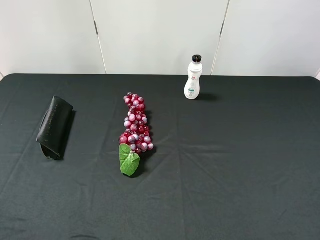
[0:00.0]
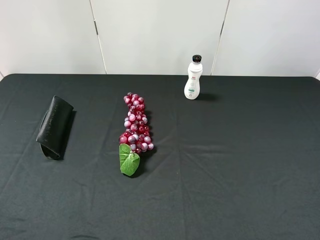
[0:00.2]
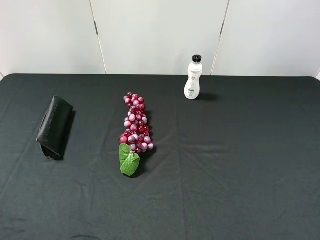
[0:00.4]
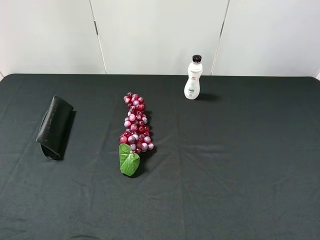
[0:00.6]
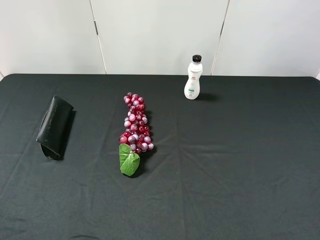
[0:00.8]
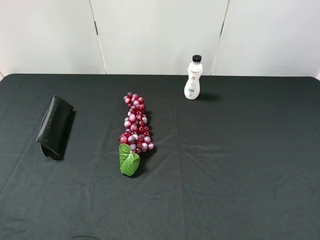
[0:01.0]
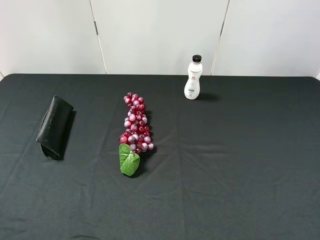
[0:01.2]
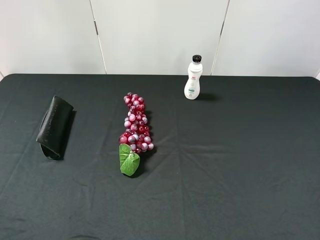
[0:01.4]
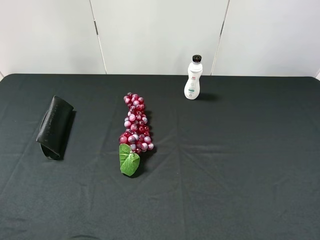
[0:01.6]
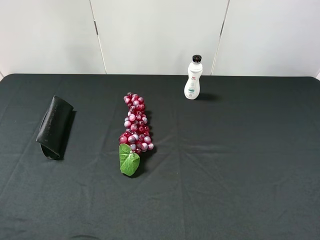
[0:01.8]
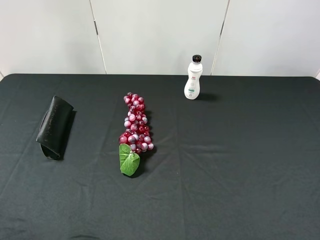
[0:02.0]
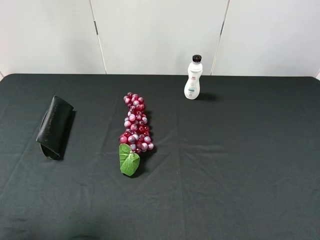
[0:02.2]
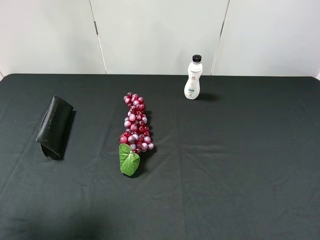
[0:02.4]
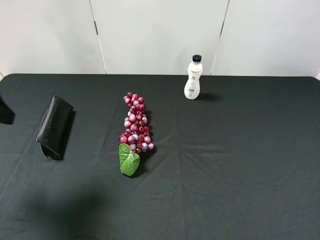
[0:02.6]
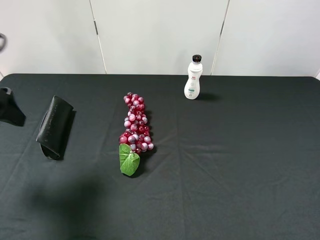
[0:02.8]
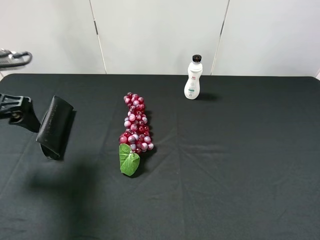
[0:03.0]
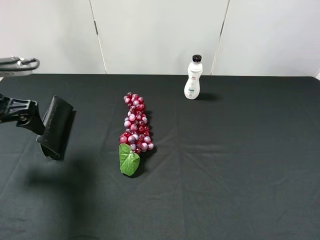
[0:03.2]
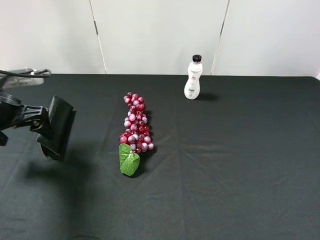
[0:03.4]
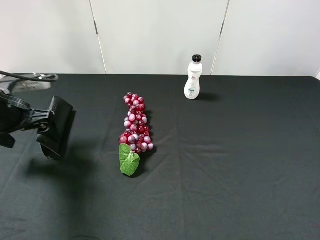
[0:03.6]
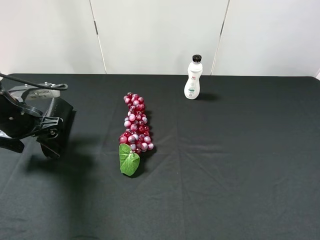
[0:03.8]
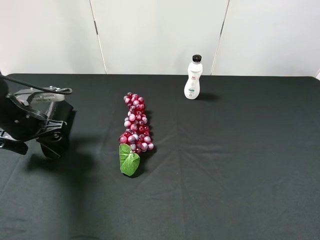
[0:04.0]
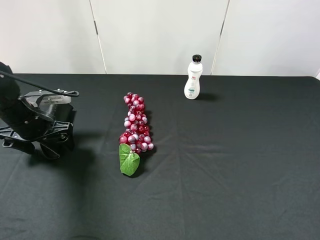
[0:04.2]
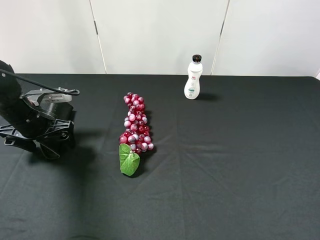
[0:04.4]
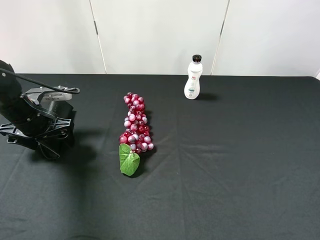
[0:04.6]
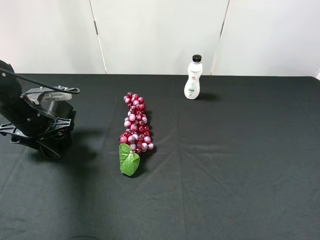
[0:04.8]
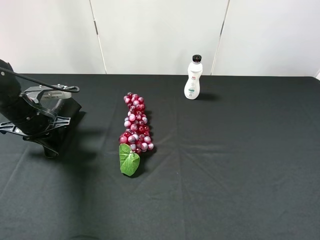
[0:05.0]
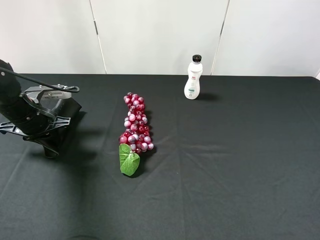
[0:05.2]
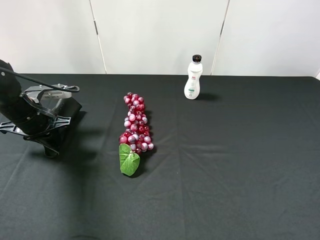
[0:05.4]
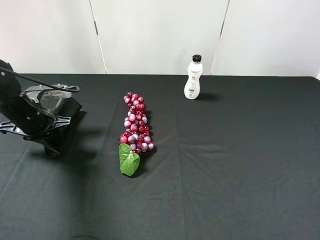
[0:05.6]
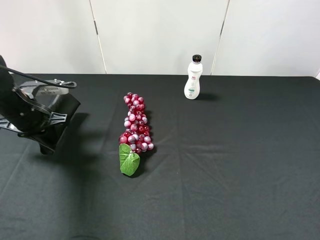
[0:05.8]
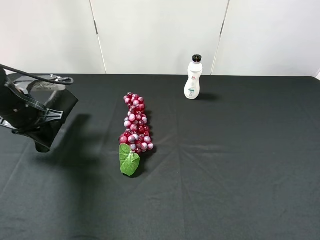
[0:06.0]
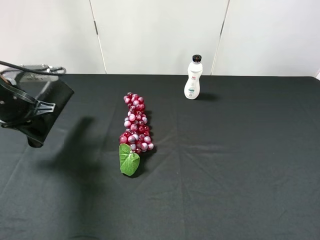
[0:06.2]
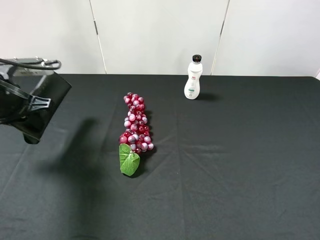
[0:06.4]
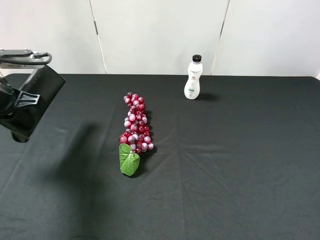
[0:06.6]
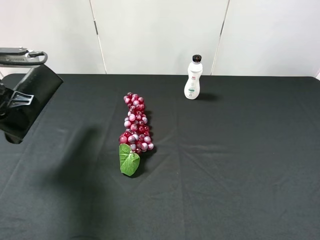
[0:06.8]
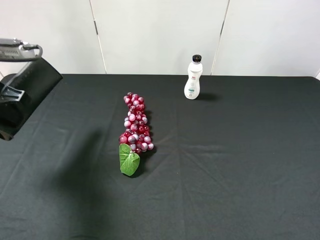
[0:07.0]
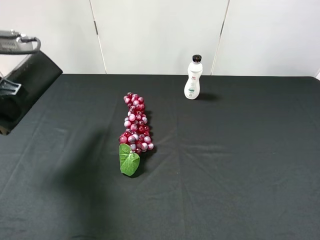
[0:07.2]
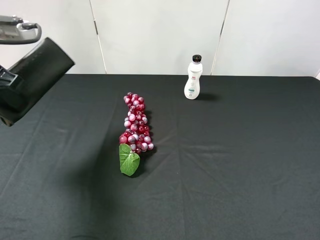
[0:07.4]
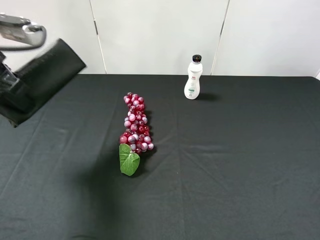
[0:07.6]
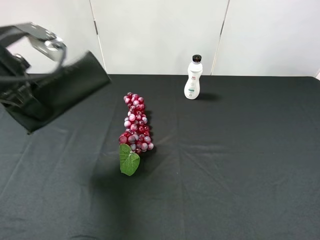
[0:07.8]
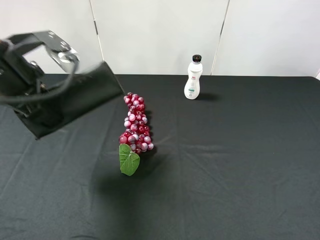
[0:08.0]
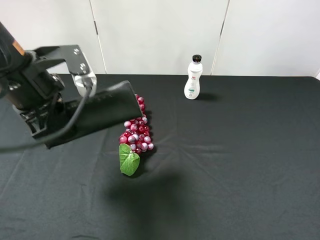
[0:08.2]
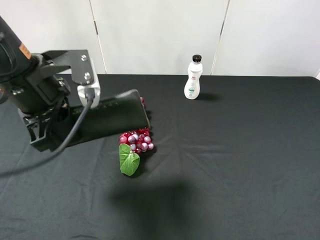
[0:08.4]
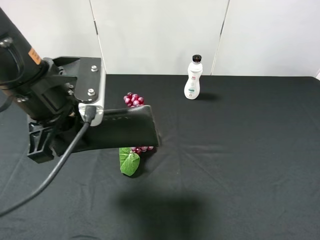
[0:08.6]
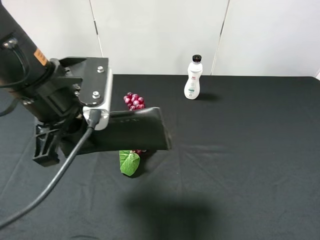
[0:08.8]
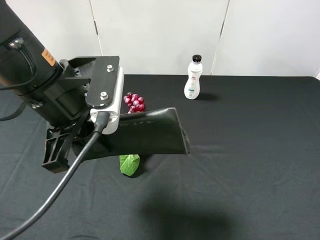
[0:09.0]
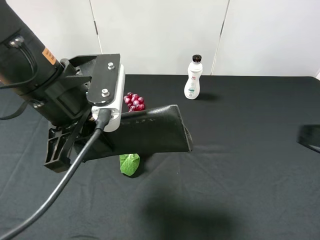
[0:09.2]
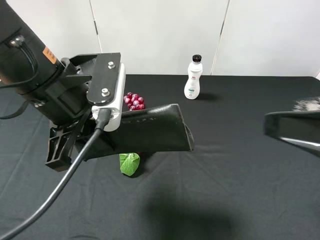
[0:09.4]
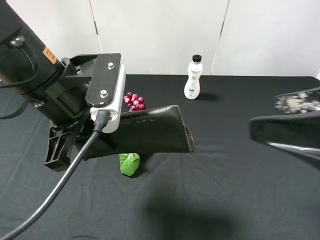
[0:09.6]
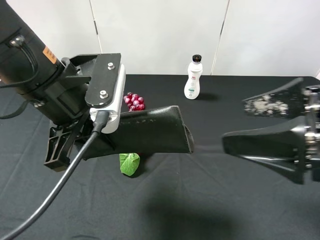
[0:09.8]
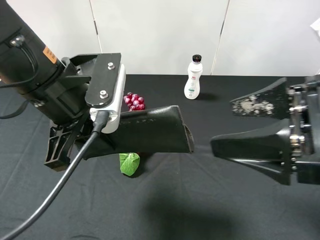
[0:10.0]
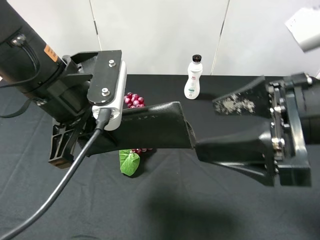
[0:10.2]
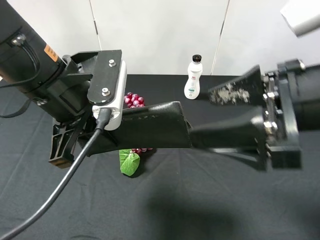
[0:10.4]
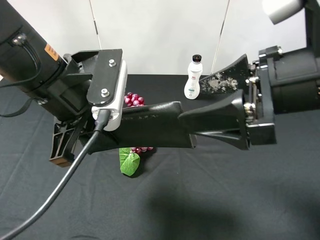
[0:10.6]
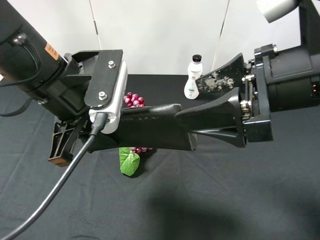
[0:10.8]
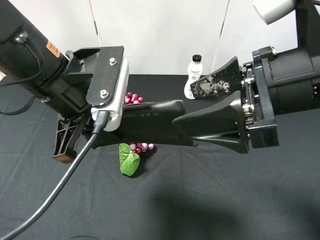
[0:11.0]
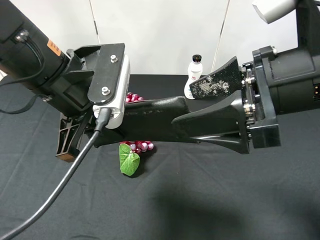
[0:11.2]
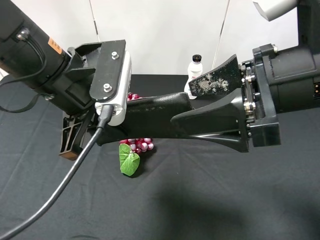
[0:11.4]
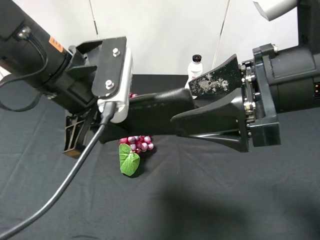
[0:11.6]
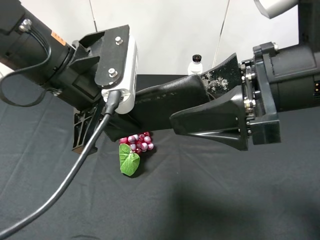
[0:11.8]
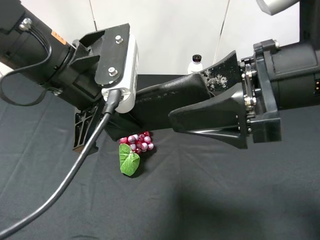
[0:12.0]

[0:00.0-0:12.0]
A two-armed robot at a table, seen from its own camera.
Task of the whole recording: use the left gripper to pick up the item and transfer it from the left gripper to the right gripper.
0:01.6 to 0:03.0: The left gripper shifts roughly 20 cm forward.
0:03.0 to 0:04.4: The left gripper shifts some 10 cm downward and forward.
0:04.4 to 0:06.0: The left gripper closes up.
0:06.0 to 0:07.6: The left gripper moves upward, roughly 10 cm.
0:07.6 to 0:09.0: The left gripper travels to the right by approximately 15 cm.
0:09.0 to 0:10.4: The right gripper shifts approximately 15 cm forward and to the left.

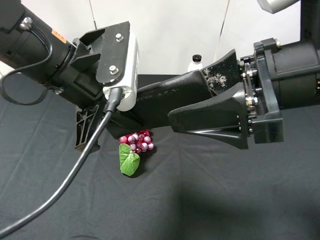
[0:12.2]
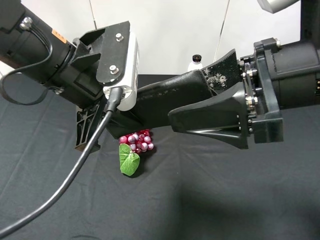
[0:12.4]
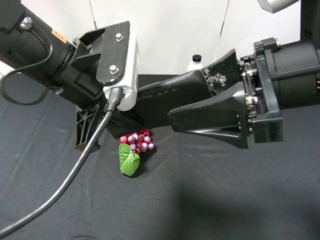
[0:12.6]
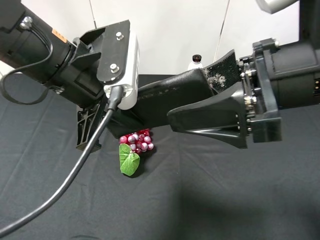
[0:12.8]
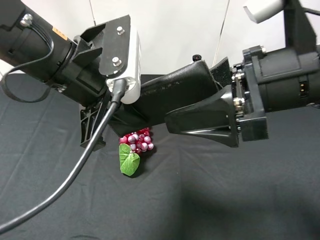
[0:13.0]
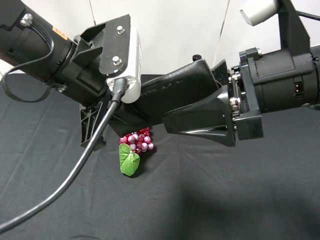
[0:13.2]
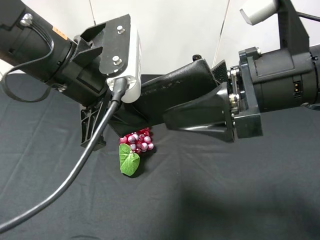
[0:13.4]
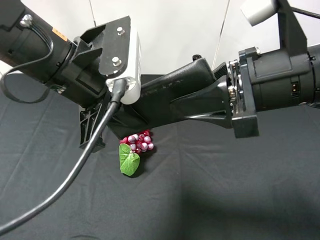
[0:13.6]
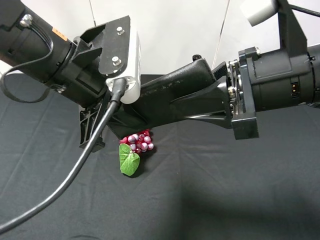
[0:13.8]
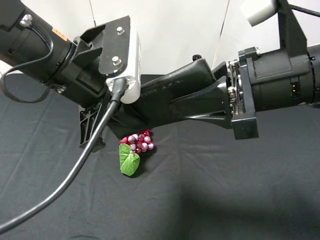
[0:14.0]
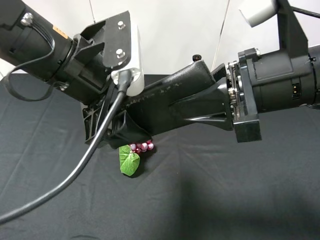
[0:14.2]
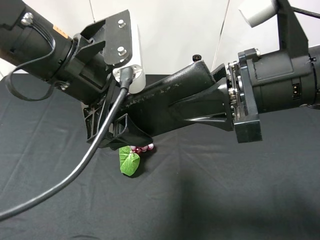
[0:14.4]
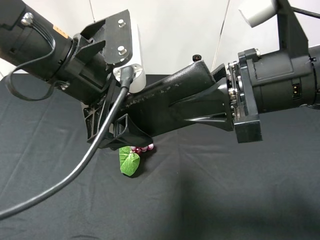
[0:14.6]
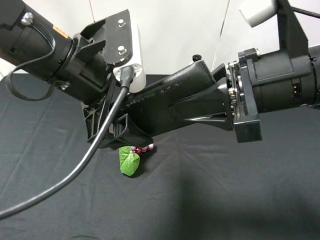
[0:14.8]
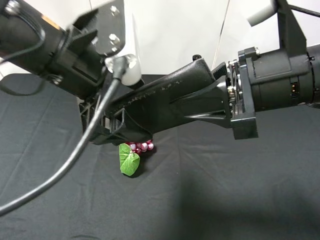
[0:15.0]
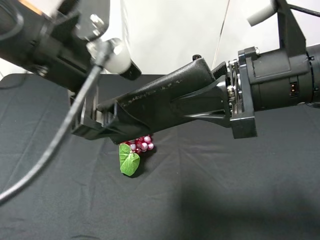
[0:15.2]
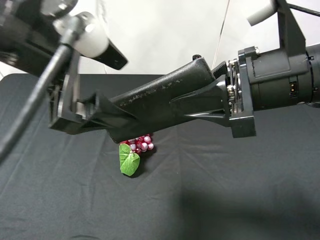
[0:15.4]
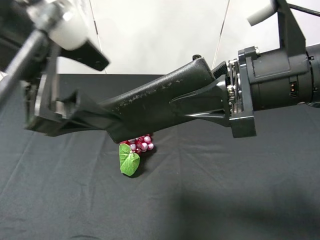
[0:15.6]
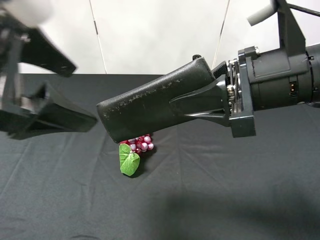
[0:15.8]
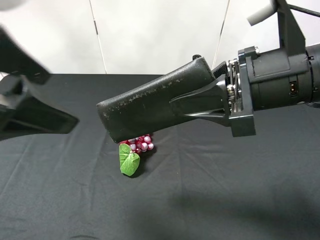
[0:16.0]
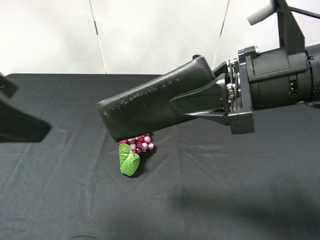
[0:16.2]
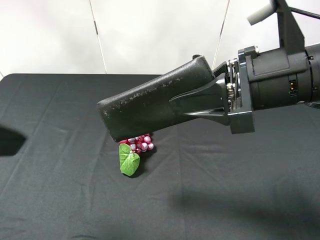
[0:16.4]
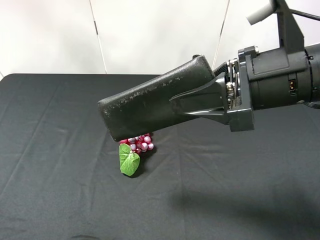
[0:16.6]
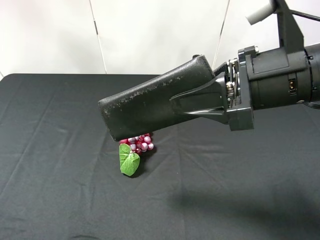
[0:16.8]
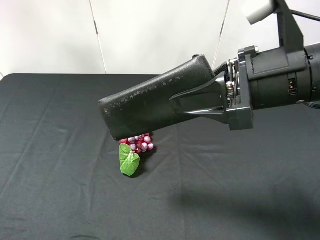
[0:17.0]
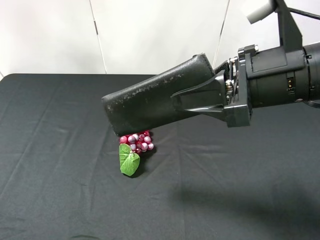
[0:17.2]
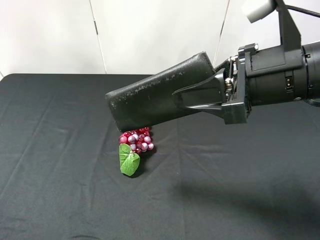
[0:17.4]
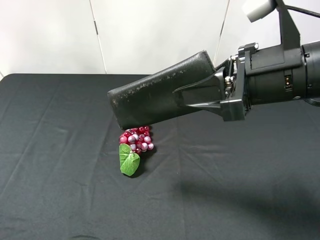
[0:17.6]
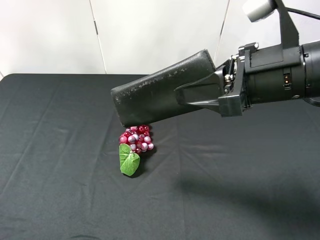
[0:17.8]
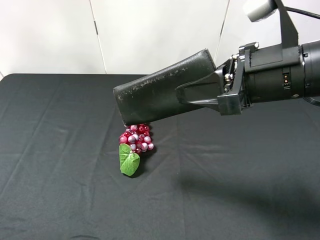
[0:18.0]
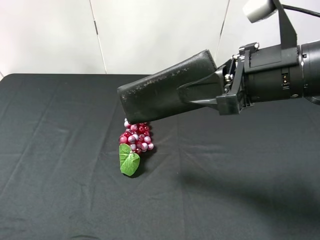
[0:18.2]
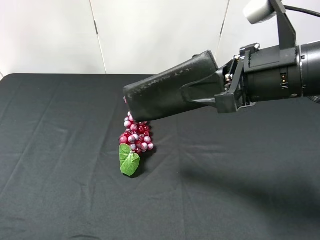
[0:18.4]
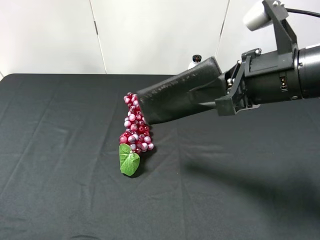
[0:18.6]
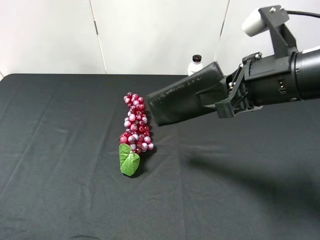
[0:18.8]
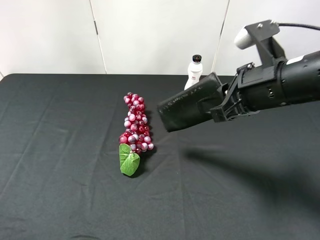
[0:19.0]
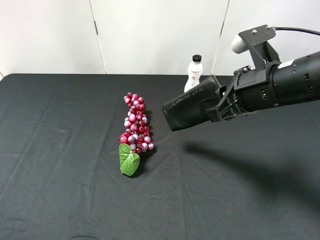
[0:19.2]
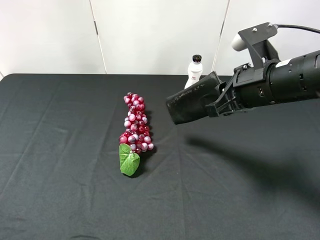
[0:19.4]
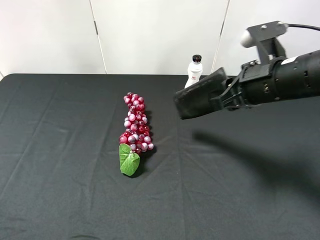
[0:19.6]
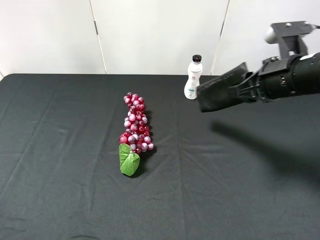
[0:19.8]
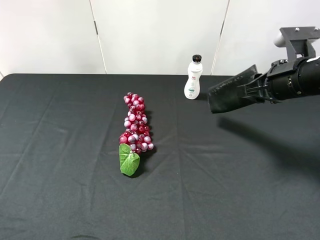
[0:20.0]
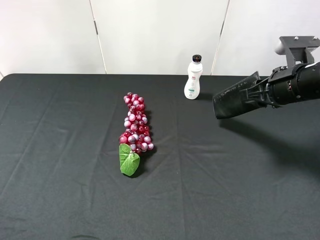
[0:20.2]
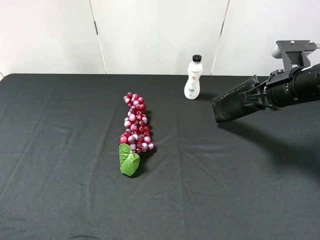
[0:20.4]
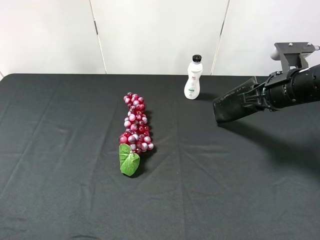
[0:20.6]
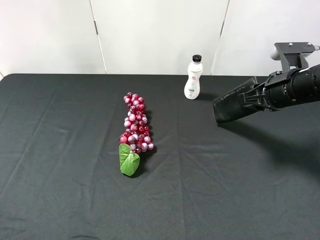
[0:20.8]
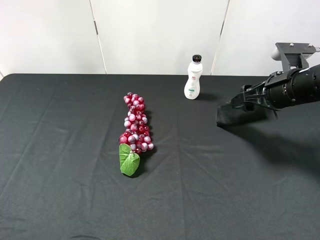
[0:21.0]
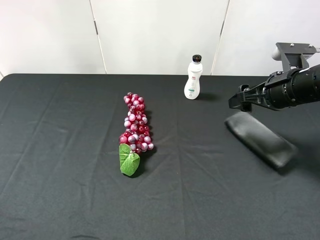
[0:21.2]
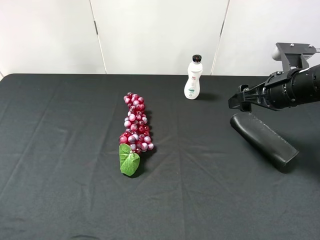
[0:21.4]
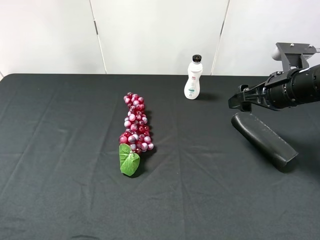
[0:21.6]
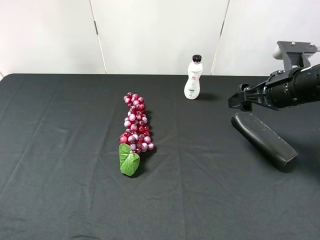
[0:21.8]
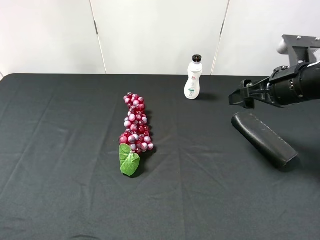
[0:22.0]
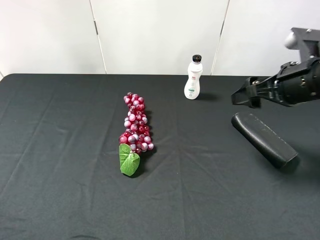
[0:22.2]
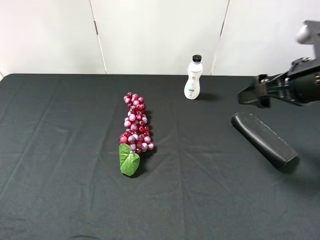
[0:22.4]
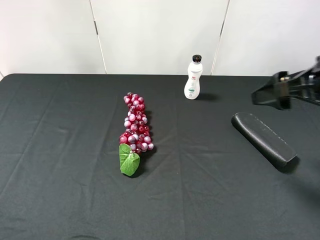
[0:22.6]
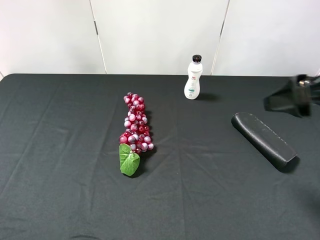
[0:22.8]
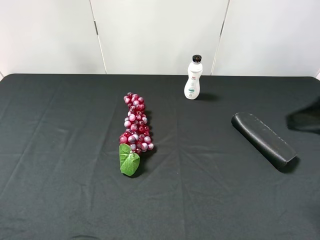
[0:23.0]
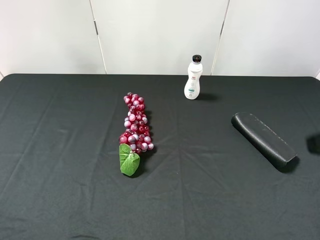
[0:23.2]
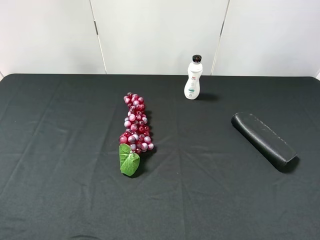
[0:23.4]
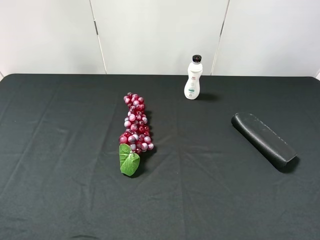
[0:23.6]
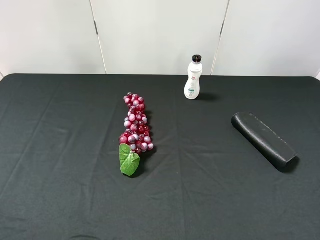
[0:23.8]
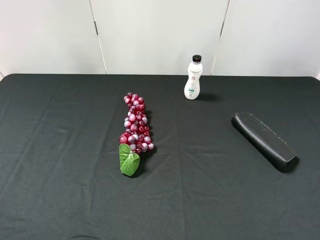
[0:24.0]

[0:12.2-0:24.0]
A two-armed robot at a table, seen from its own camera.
Task of the whole recording: use the left gripper to pick up the item and transfer it from the left gripper to the right gripper.
0:12.2 to 0:13.6: The right gripper closes its fingers.
0:13.6 to 0:15.2: The left gripper opens its fingers.
0:15.2 to 0:16.6: The left gripper goes approximately 20 cm to the left and backward.
0:16.6 to 0:18.2: The left gripper is displaced downward, backward and to the left by roughly 10 cm.
0:18.2 to 0:19.6: The right gripper moves forward, approximately 5 cm.
0:19.6 to 0:21.0: The right gripper goes approximately 5 cm to the right, and opens up.
0:21.0 to 0:22.6: The right gripper travels backward and upward by approximately 10 cm.
0:22.6 to 0:24.0: The right gripper shifts about 20 cm backward.
